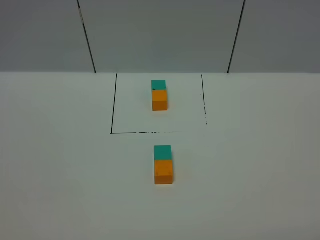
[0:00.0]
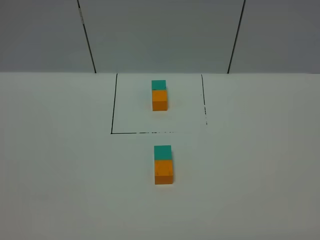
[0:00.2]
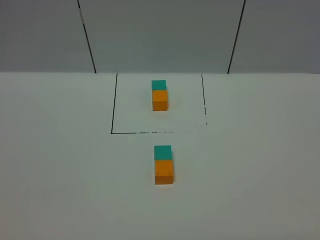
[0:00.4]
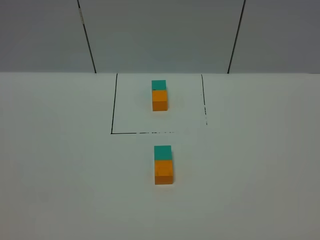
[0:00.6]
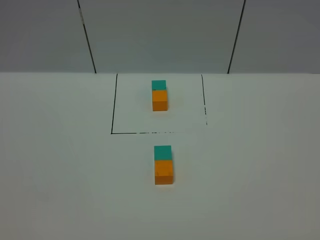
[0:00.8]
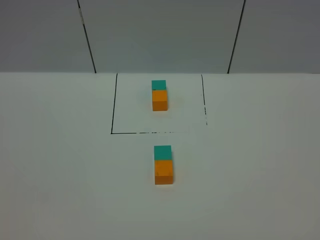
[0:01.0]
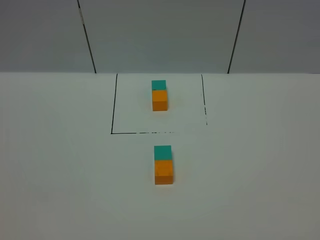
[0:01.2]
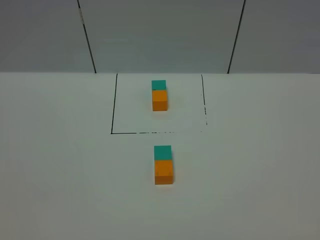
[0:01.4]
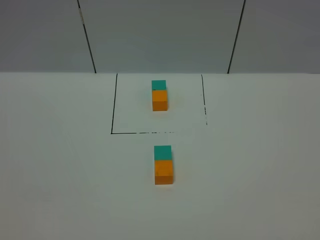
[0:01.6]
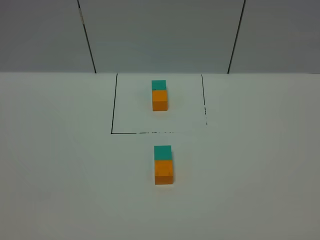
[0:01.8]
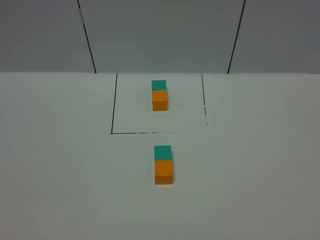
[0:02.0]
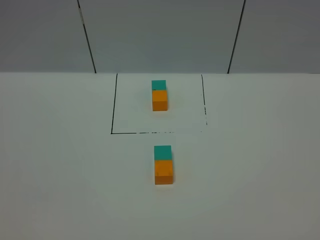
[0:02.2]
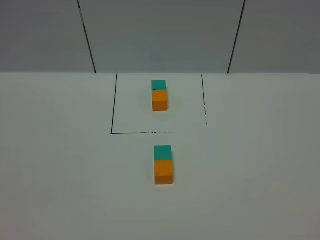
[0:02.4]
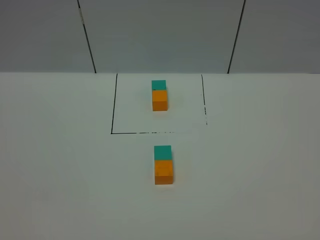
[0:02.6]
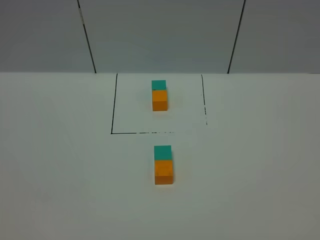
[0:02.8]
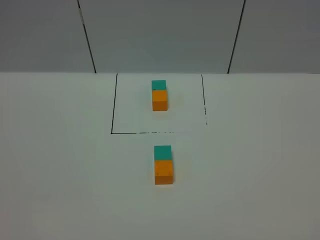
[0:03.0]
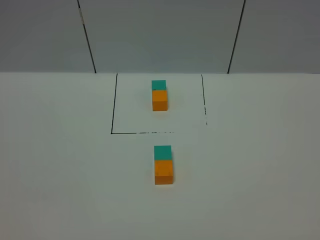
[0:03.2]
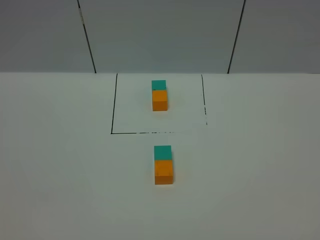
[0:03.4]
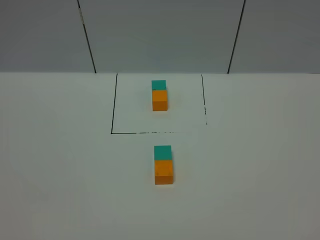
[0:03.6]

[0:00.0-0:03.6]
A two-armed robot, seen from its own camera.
Task of the whole recording: According to the building block template in front, assemble the scattered blocks together.
1.8 to 3.6 s: The two grippers keep their place.

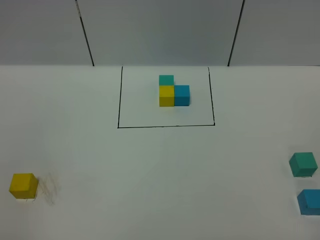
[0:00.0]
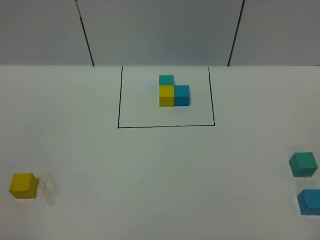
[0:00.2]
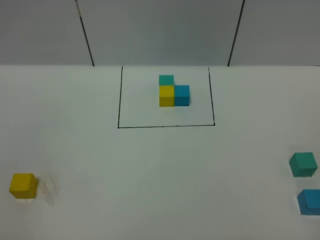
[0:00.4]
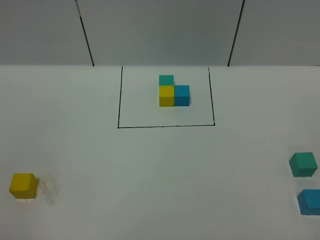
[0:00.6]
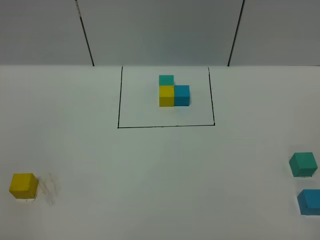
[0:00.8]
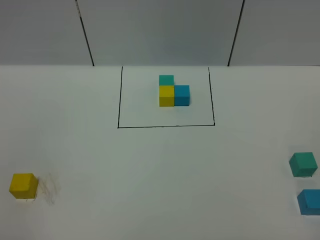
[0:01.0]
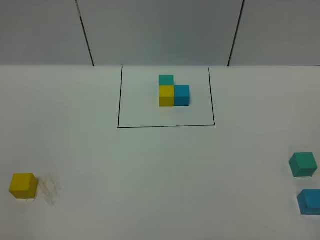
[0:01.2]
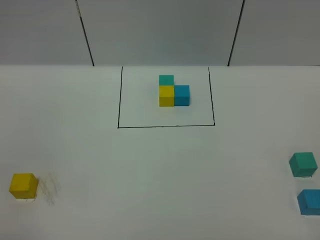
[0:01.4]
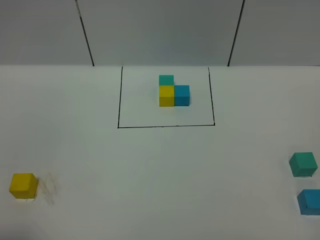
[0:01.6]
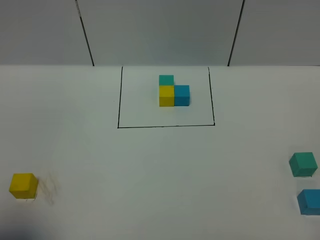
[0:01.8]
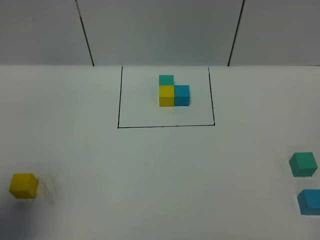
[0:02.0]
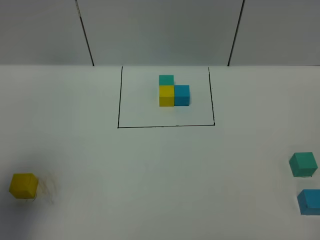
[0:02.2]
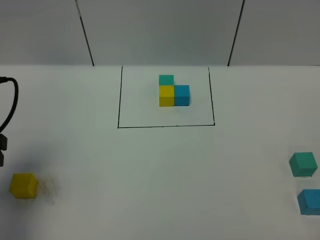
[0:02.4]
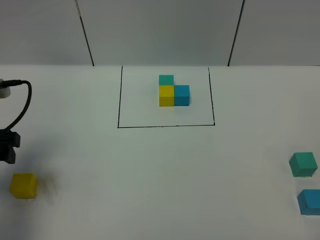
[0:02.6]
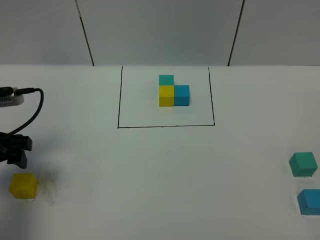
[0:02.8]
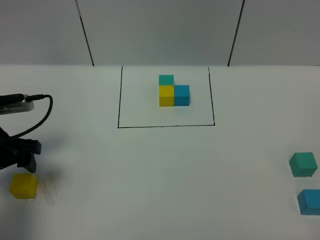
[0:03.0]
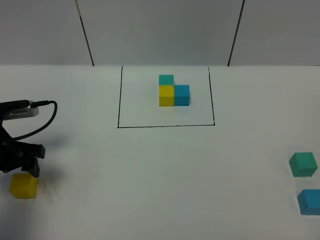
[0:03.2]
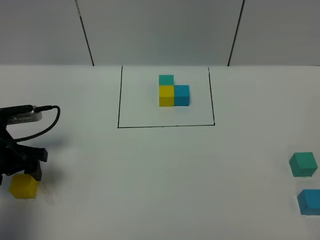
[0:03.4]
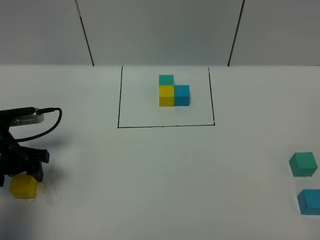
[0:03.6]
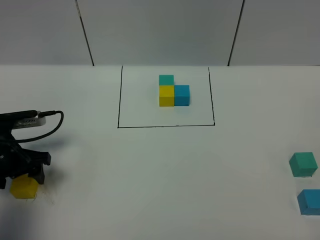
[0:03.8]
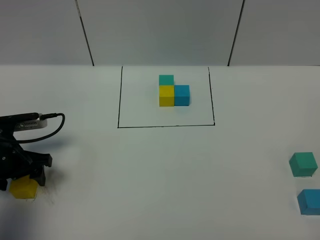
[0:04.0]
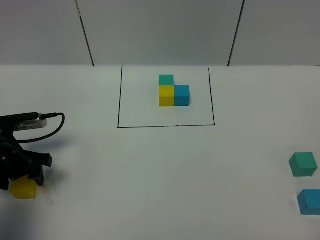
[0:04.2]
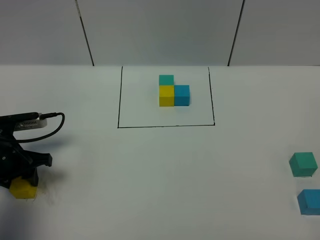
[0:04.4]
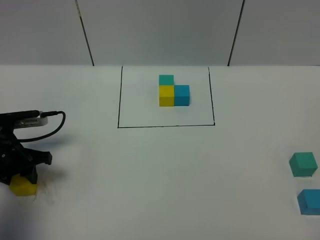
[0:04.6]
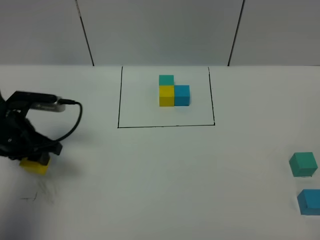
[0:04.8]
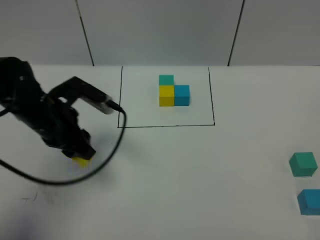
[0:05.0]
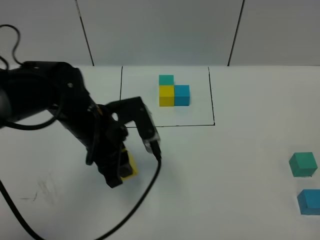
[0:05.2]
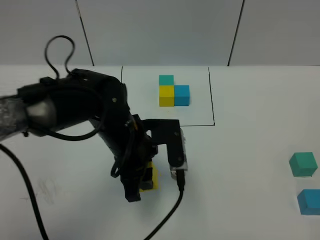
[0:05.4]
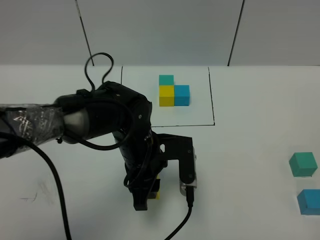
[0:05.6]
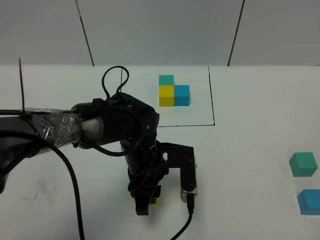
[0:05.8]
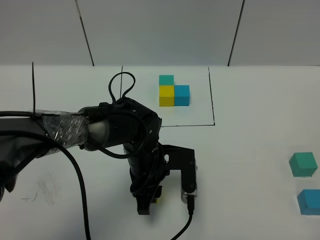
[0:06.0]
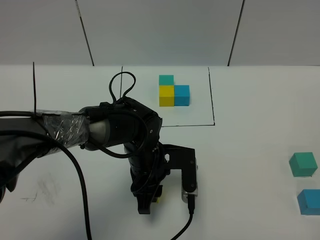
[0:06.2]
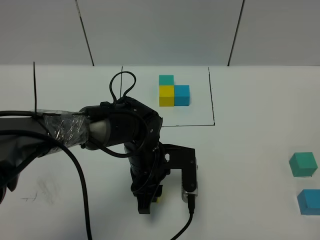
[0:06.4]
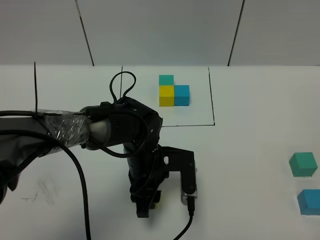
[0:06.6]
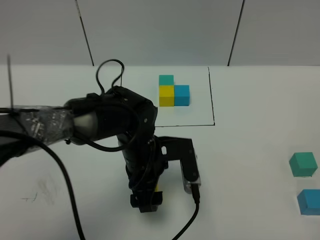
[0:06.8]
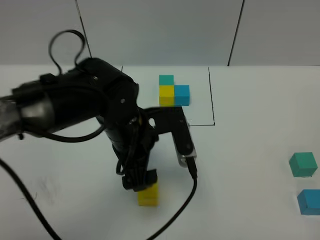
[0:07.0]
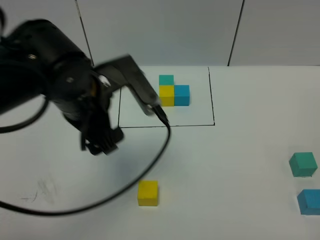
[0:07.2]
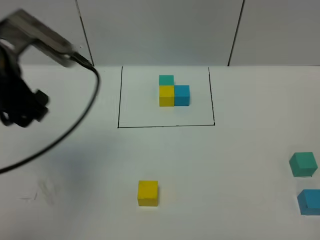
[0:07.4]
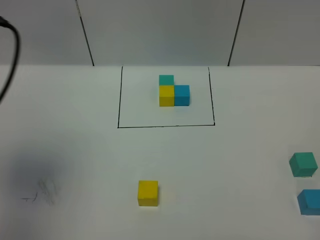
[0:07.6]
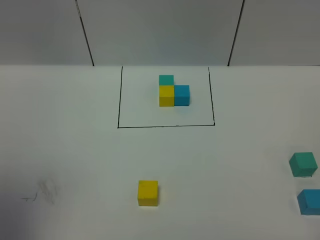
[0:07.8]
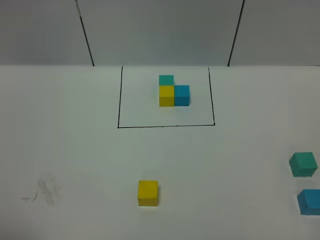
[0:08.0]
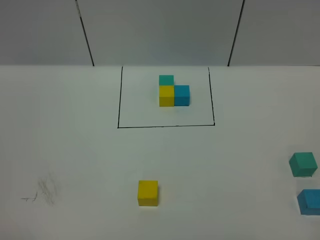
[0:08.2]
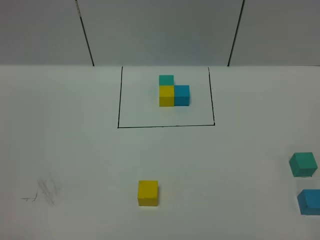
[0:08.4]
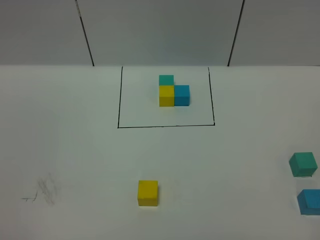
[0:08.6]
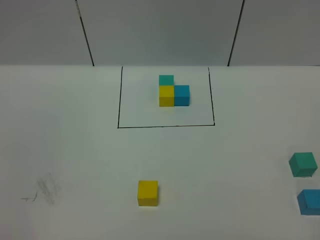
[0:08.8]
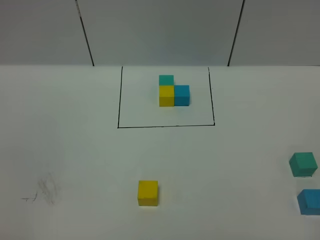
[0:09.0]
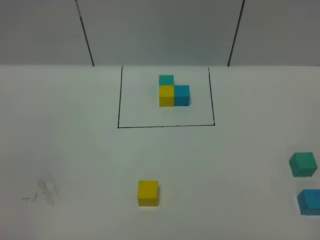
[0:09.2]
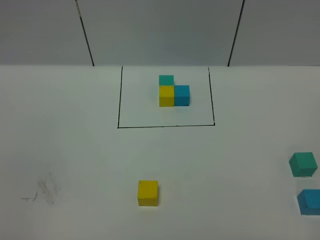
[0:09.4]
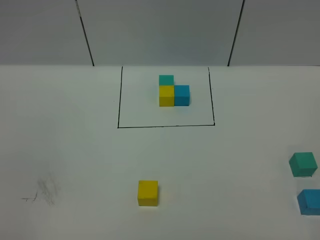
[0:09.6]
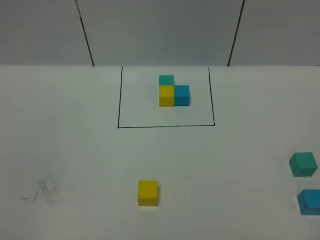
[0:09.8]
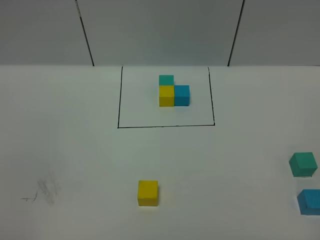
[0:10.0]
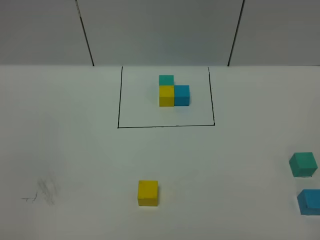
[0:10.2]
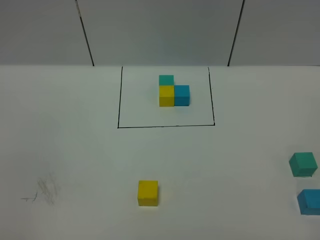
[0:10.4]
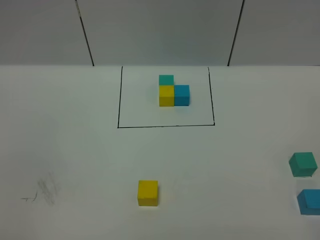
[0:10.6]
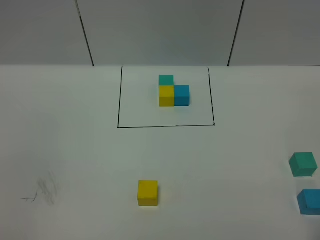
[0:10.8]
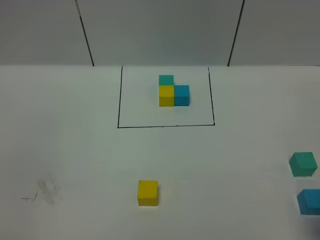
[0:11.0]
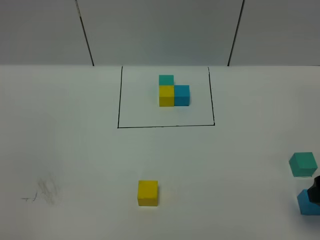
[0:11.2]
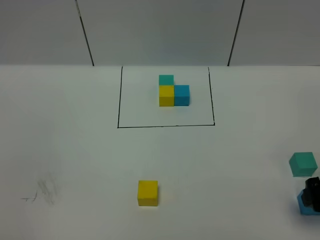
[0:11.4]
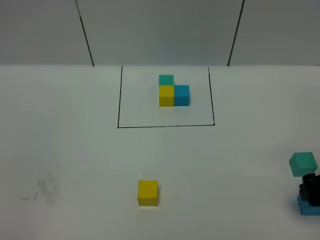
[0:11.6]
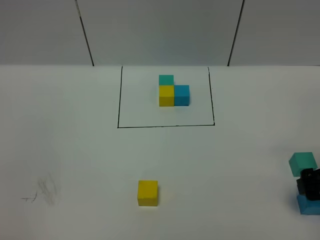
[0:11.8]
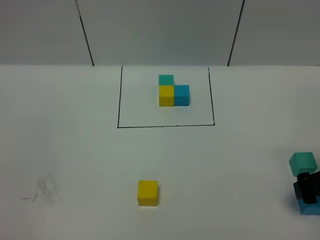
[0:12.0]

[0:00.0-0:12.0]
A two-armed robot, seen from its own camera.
Task of the whole recording: According to the building block template in front, assemble the scattered blocks together.
Step, 2.4 to 6.8 s: Put the yellow cube in the center of the table.
1.6 to 3.0 s: The left gripper heads forward and downward, covering roughly 30 cm.
3.0 to 4.4 s: The left gripper is displaced downward by roughly 5 cm, and closes.
4.4 to 6.0 s: The left gripper goes roughly 25 cm to the right.
6.0 to 7.6 s: The left gripper travels upward and to the left by some 40 cm, and opens up.
7.6 to 9.0 s: The left gripper is displaced backward and downward by roughly 25 cm.
10.4 to 12.0 s: The right gripper heads forward and downward, covering approximately 25 cm, and opens.

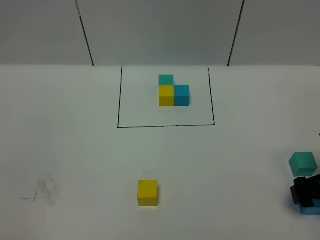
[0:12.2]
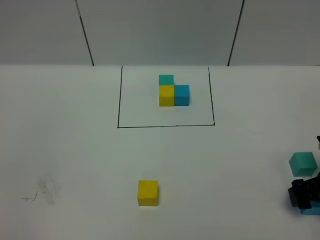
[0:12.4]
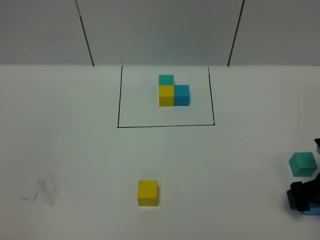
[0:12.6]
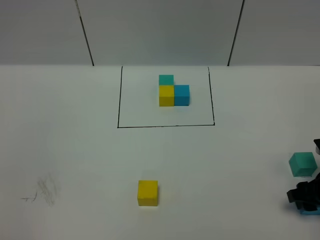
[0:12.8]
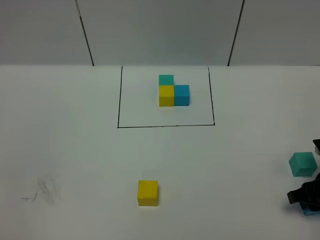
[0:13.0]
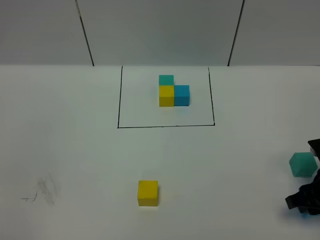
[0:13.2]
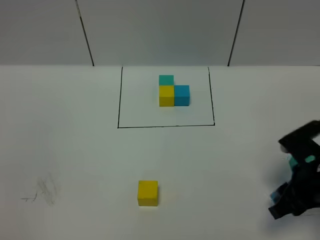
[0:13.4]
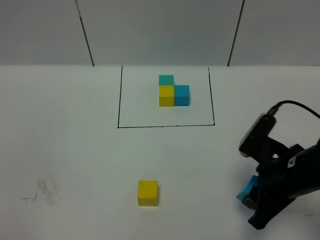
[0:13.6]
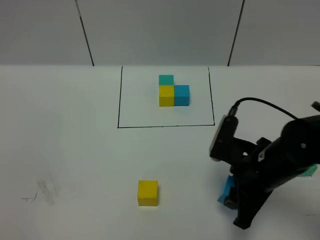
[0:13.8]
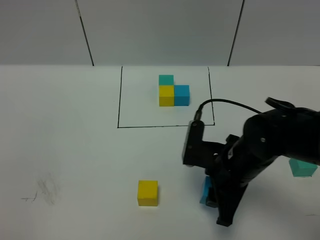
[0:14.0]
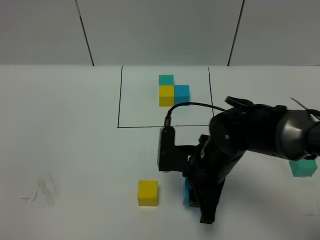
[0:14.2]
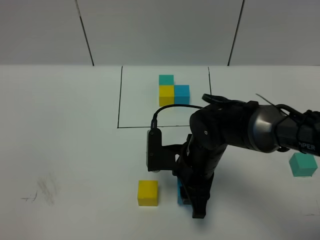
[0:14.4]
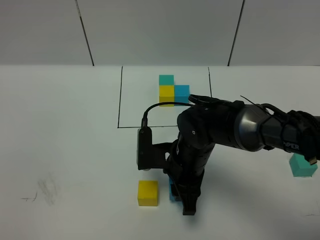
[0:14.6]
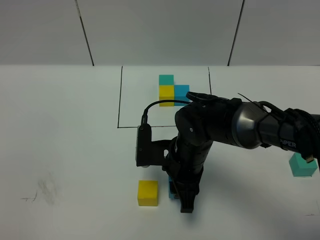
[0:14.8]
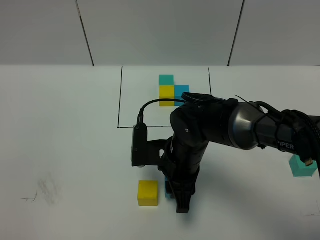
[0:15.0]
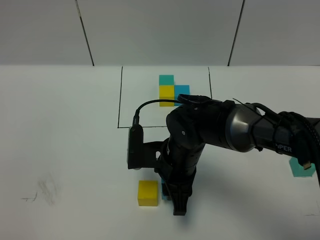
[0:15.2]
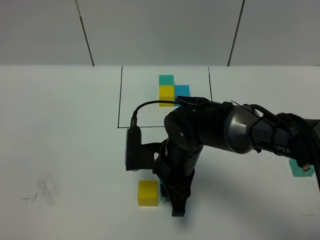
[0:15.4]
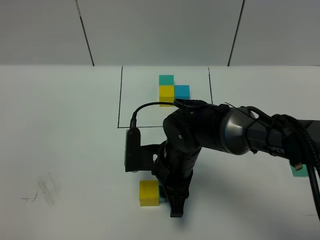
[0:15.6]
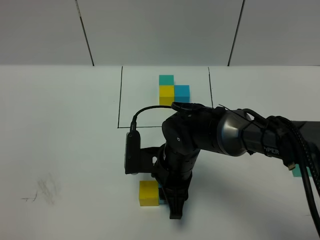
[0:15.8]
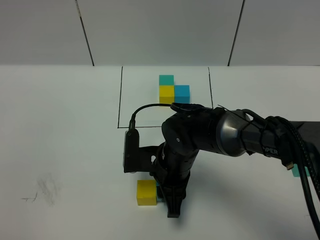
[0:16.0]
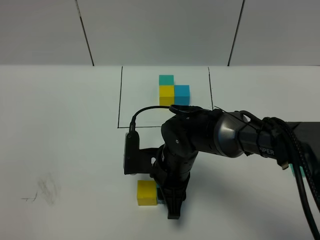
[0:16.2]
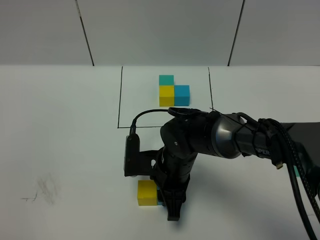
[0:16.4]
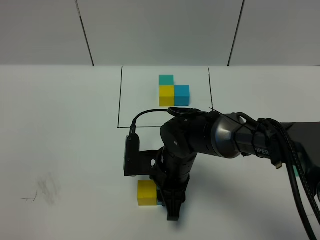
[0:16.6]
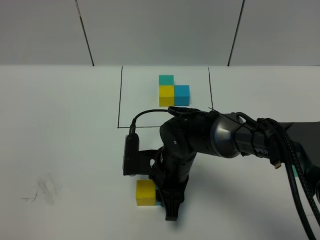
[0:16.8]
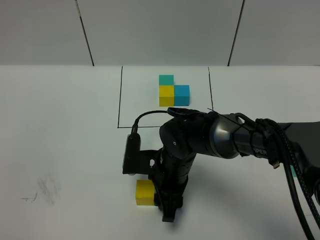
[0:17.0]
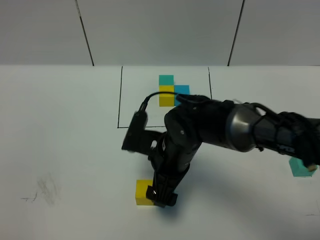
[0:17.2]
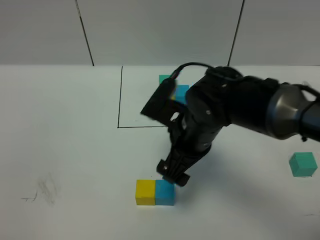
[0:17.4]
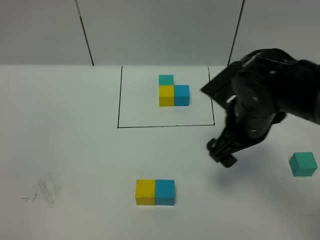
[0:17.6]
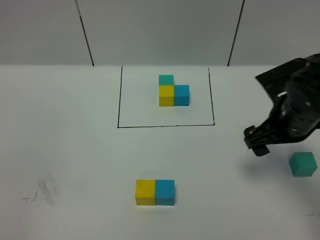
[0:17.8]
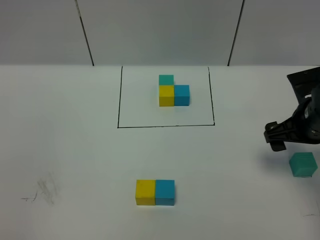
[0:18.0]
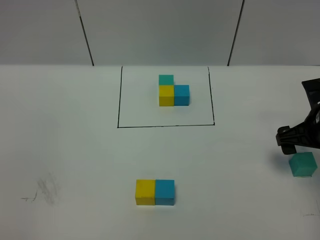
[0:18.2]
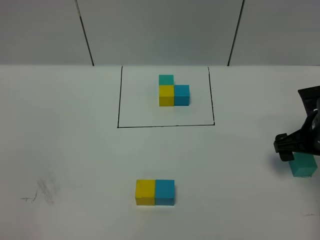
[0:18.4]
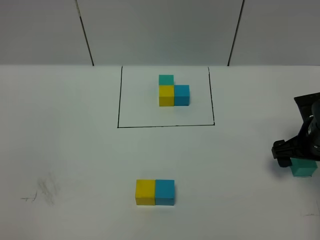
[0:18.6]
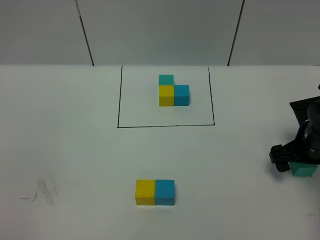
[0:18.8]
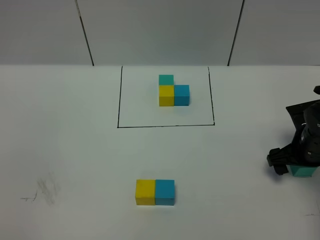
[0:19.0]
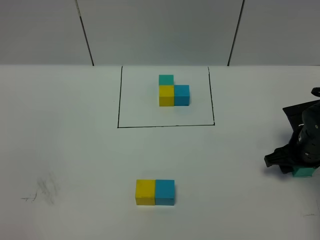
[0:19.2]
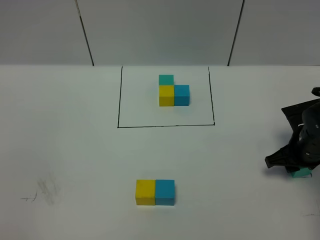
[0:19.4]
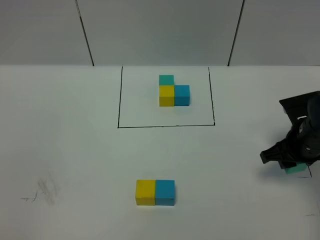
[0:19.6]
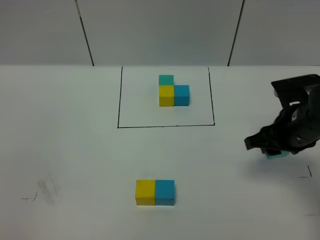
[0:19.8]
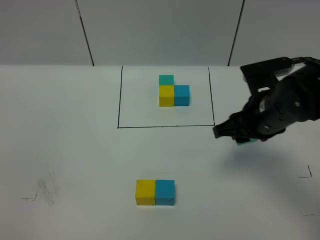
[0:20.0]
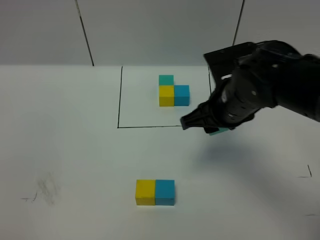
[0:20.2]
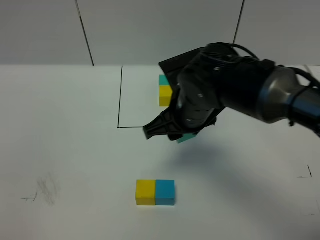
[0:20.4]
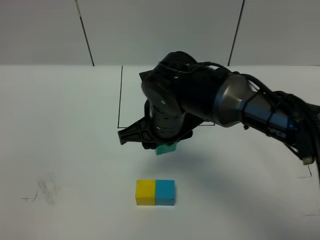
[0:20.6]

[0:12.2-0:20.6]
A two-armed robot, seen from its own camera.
Task of the whole recording: According to the building block template in front, assemble the scattered blocks together.
Step, 12.2 to 17.0 s: Put the blue cube on the right of the yellow cube.
12.2 to 13.6 s: The right gripper is displaced to the left and upward by some 15 cm, and closes.
13.6 to 15.0 s: The right gripper moves to the left, some 15 cm.
15.0 to 16.4 s: There are only small adjustments of the grippers.
16.4 to 17.8 s: The right gripper is displaced to the right and upward by approximately 20 cm, and opens.
17.8 to 19.2 s: The right gripper is displaced downward and to the right by about 10 cm, and closes up.
19.2 to 20.6 s: The right gripper shifts approximately 30 cm to the left.
